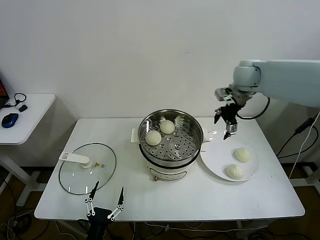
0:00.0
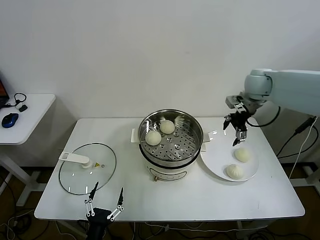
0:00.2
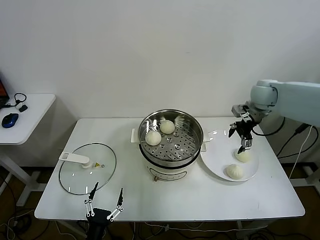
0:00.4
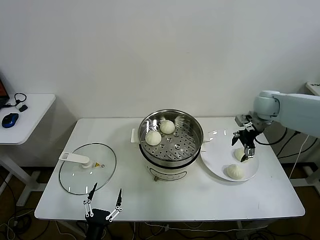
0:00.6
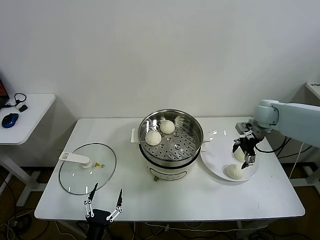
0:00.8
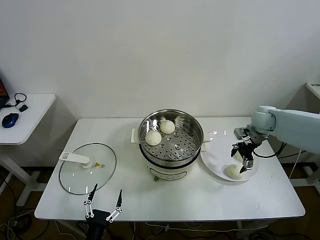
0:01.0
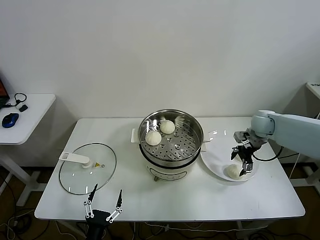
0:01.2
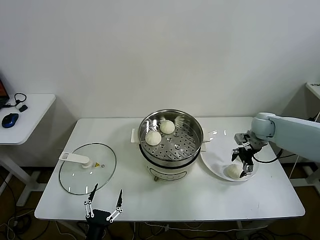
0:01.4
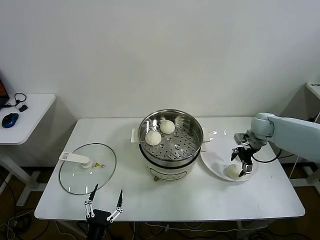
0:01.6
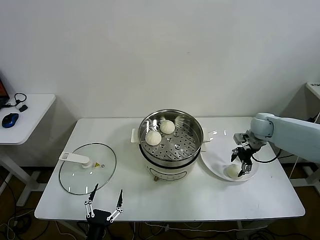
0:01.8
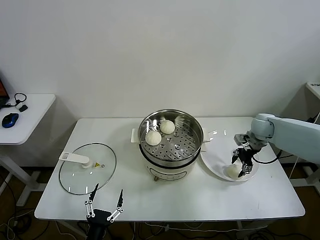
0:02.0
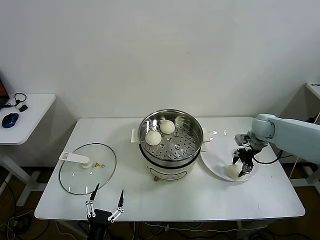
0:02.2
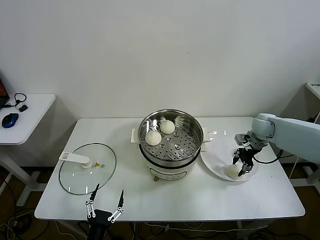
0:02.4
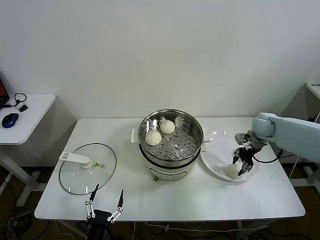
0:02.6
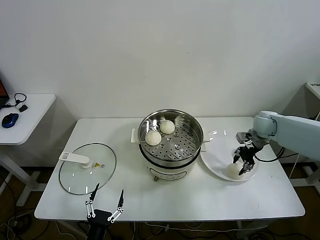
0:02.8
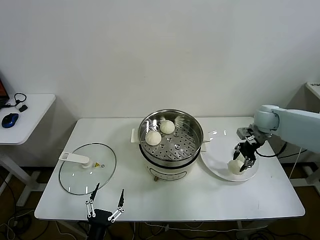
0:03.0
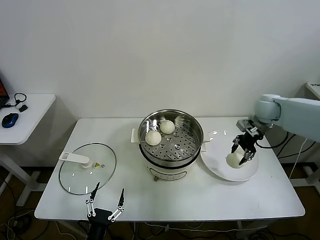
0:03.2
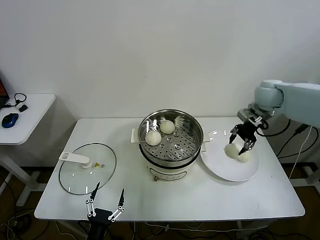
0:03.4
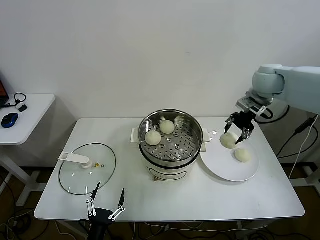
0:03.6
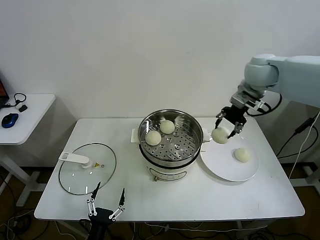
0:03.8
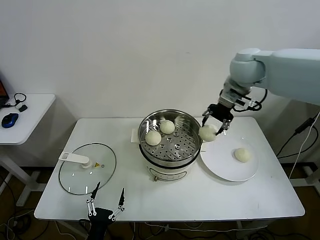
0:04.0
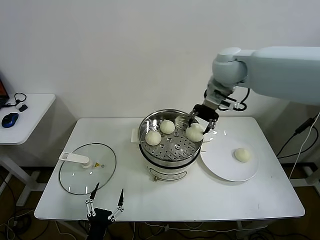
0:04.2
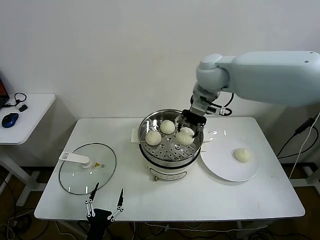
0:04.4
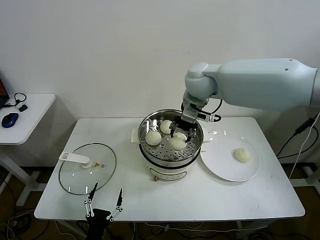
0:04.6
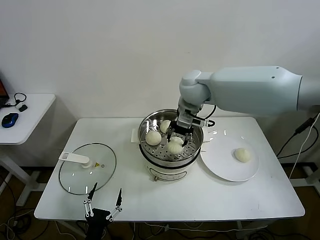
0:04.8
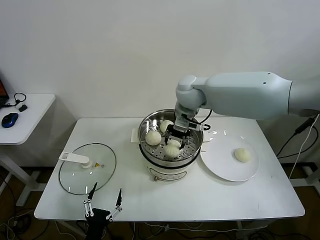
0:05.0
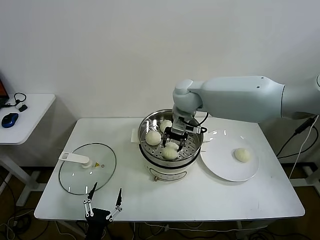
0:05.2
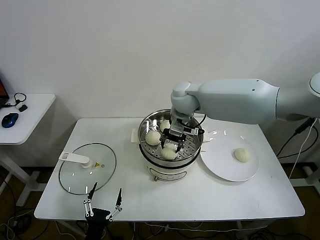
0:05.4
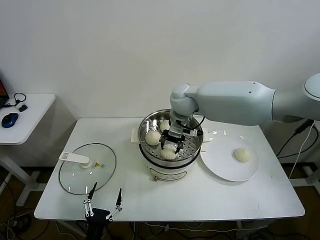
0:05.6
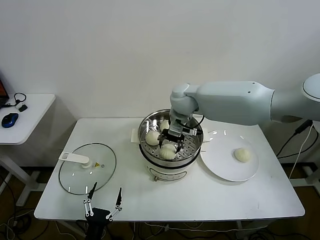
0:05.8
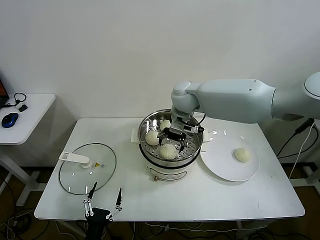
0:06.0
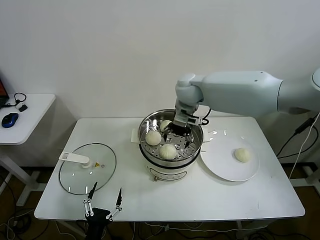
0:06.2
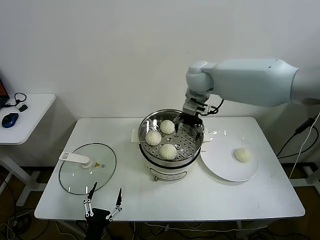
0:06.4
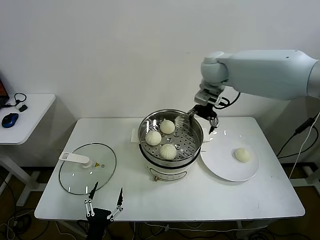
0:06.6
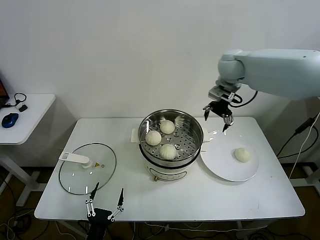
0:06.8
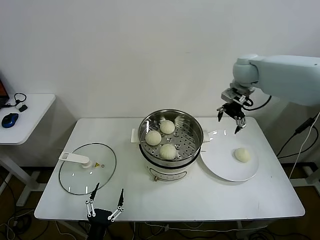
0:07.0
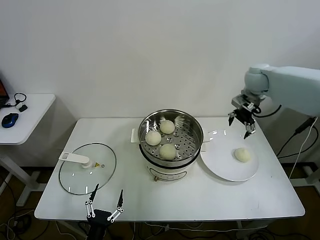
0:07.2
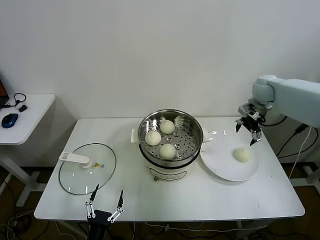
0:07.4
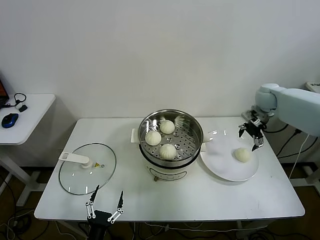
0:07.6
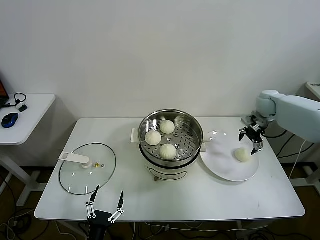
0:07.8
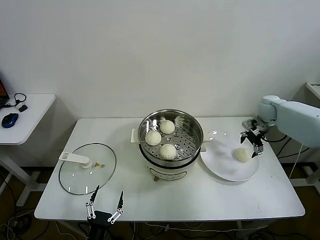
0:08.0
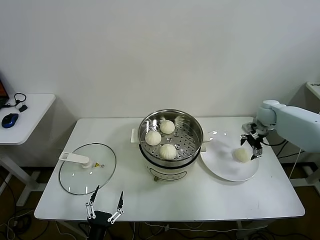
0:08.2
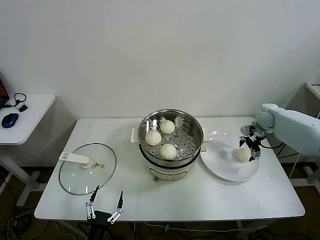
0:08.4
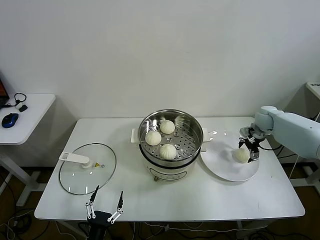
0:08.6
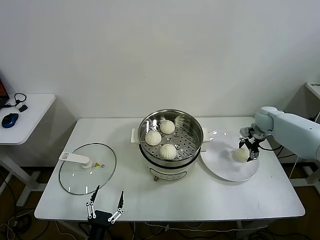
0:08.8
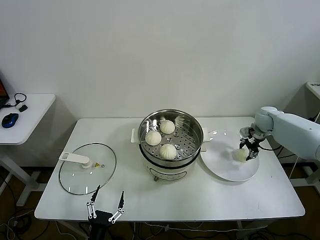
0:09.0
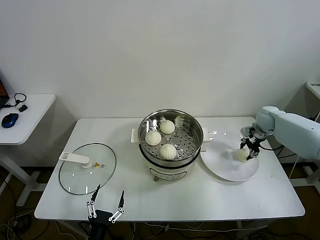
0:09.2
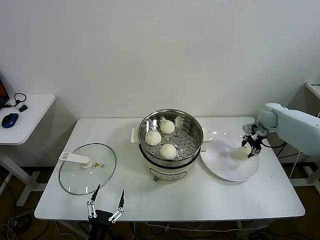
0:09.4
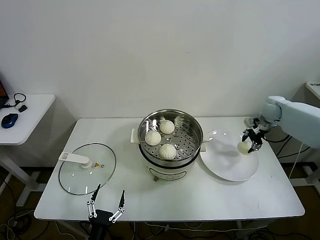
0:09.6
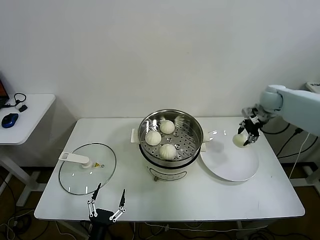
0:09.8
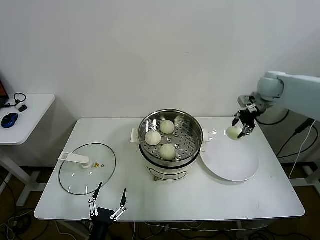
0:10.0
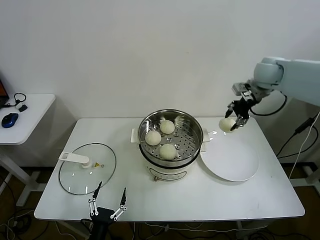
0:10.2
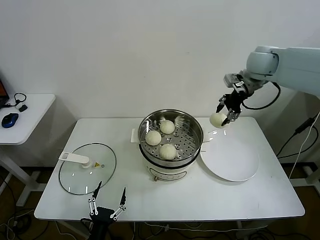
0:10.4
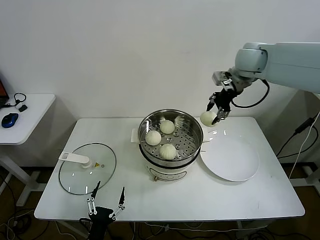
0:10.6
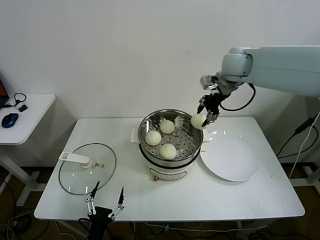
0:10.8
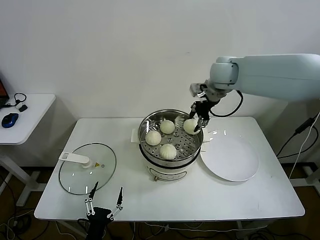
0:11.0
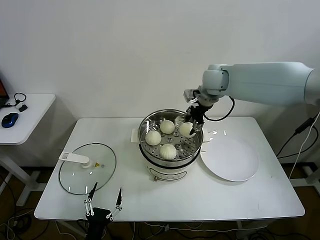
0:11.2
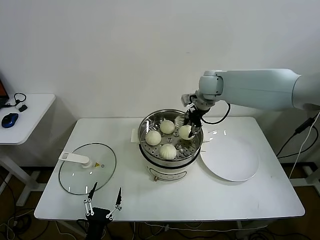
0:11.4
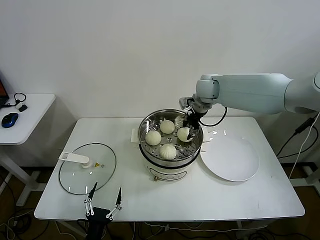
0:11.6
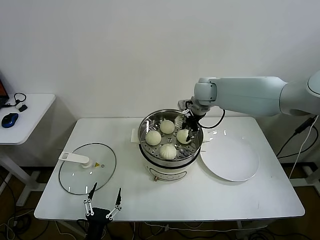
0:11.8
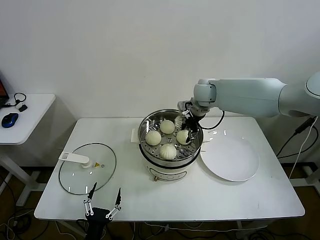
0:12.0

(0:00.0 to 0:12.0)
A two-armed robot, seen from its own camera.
Task of the whole recording: take steamed baozi put them in steamer.
Step, 0:00.0 - 0:02.4: Grasp the baozi in the plate with right gripper.
Step, 0:02.6 - 0:06.0: Place the baozi on the steamer with right gripper.
Step, 0:06.2 - 0:09.0: Grasp the baozi in the plate with right gripper.
0:00.0 - 0:01.6: The right gripper heads downward and to the right, covering about 20 cm.
0:01.6 - 0:03.0: The right gripper closes.
0:03.0 - 0:04.4: The right gripper heads to the left and upward, covering roughly 30 cm.
0:04.4 - 0:06.0: The right gripper goes approximately 10 cm downward and to the left, and opens.
0:06.0 - 0:07.6: The right gripper is displaced to the right by roughly 30 cm.
0:07.6 - 0:09.0: The right gripper is displaced downward by some 10 cm, and closes its fingers.
0:09.0 - 0:10.4: The right gripper travels upward and to the left by some 30 cm.
0:10.4 - 0:12.0: The right gripper goes roughly 20 cm to the left and downward.

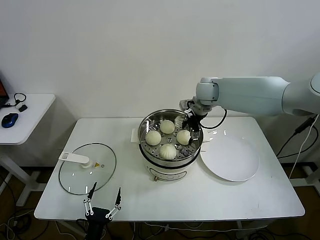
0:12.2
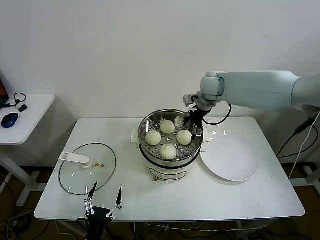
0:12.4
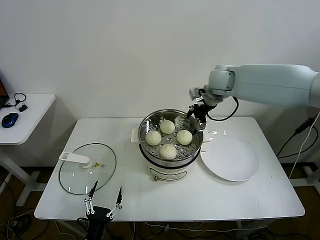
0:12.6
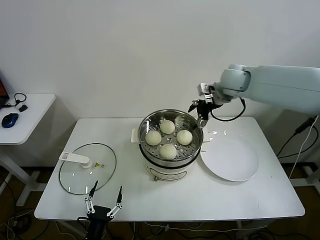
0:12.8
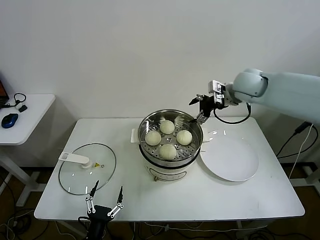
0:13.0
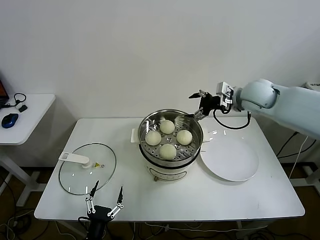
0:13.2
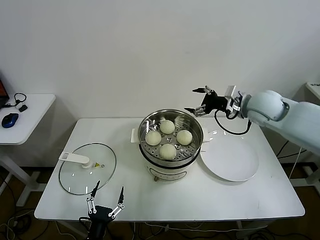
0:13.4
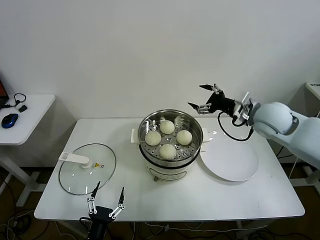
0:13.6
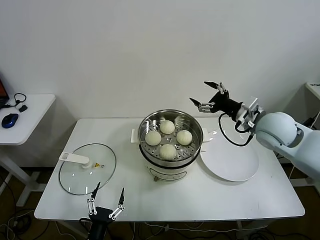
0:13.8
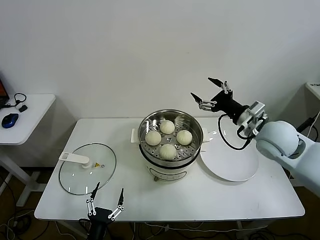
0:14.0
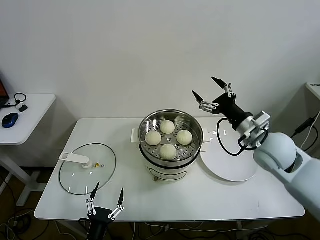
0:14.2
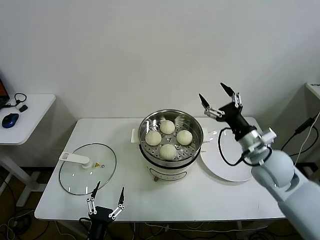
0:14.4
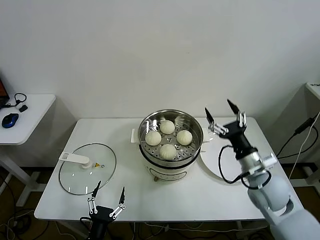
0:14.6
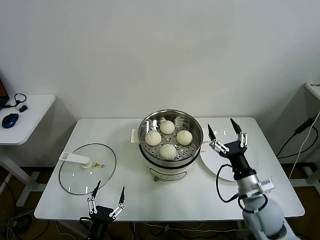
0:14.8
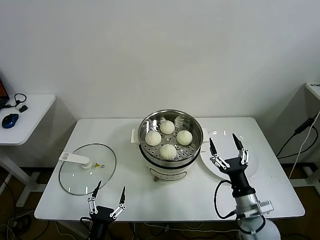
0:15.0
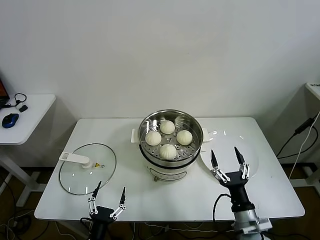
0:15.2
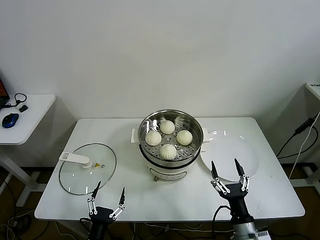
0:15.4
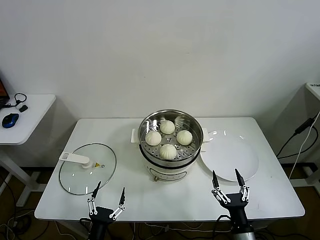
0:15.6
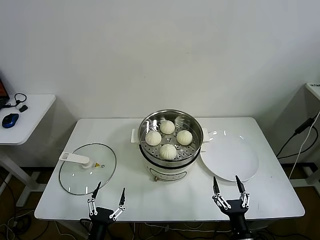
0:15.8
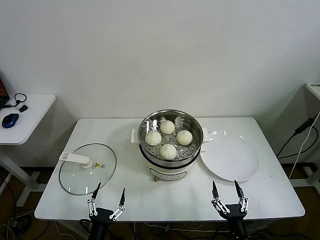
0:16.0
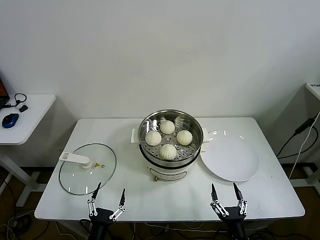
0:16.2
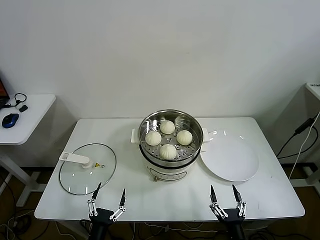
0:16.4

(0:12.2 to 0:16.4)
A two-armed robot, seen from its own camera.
Task of the whole recording: take steamed baozi put them in steamer.
0:12.2 - 0:13.6: The right gripper travels backward and to the right by roughly 20 cm.
0:13.6 - 0:15.0: The right gripper heads backward and downward, covering approximately 30 cm.
0:15.0 - 0:16.4: The right gripper moves backward and downward, some 20 cm.

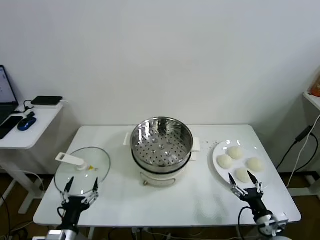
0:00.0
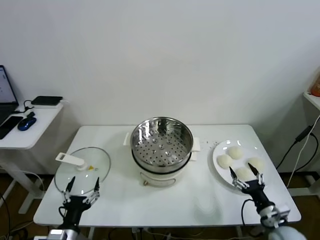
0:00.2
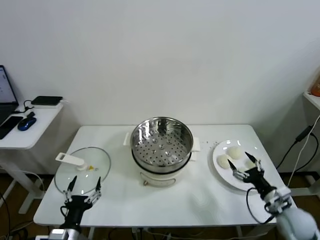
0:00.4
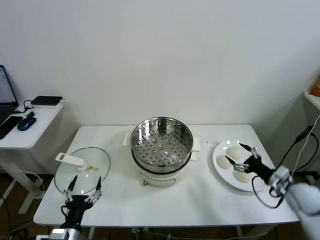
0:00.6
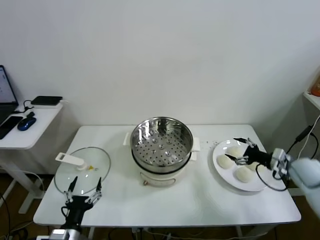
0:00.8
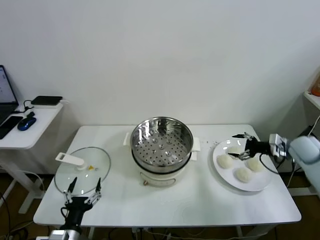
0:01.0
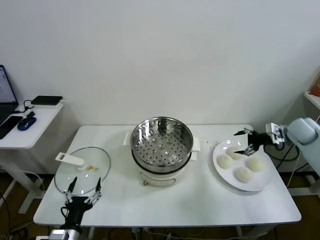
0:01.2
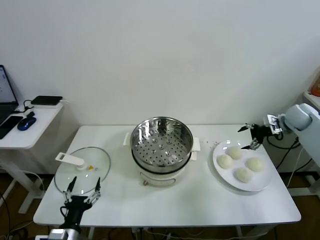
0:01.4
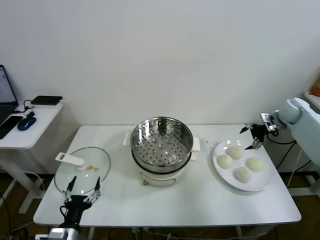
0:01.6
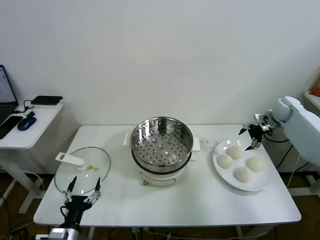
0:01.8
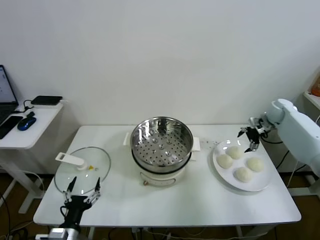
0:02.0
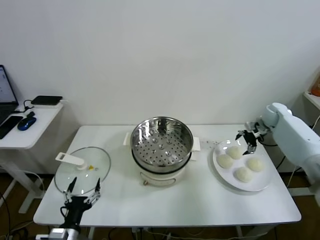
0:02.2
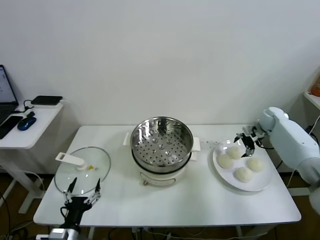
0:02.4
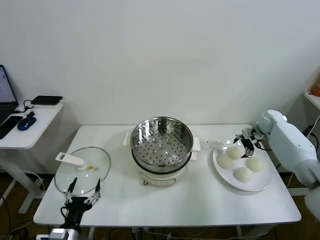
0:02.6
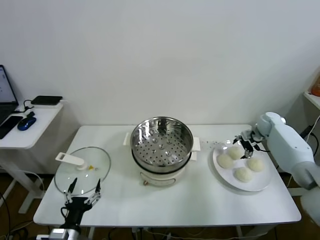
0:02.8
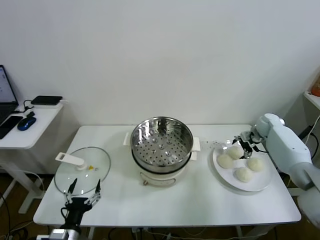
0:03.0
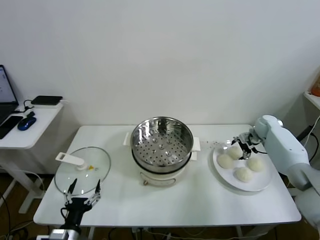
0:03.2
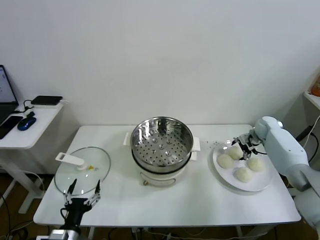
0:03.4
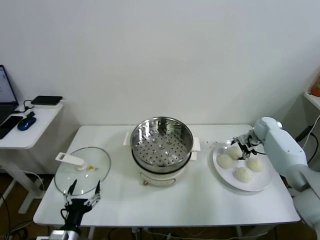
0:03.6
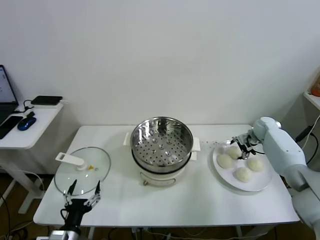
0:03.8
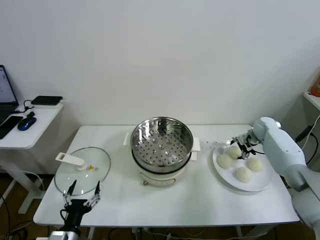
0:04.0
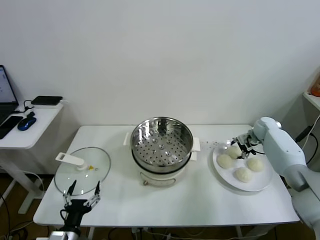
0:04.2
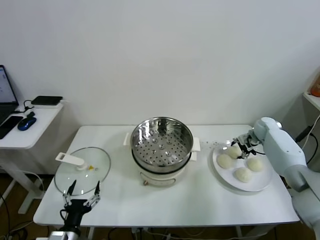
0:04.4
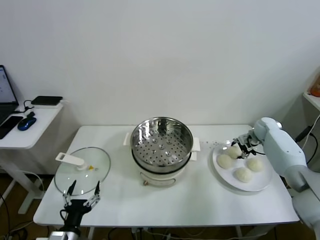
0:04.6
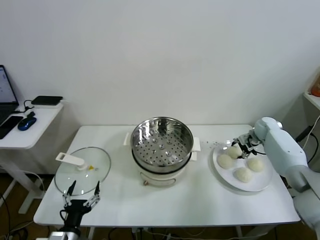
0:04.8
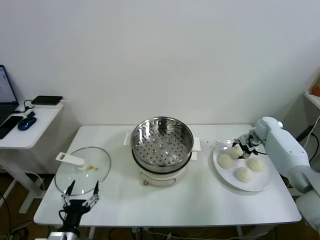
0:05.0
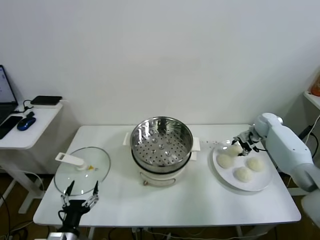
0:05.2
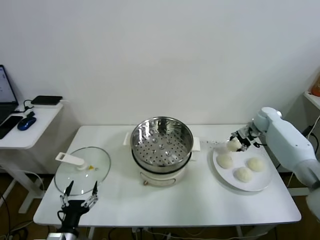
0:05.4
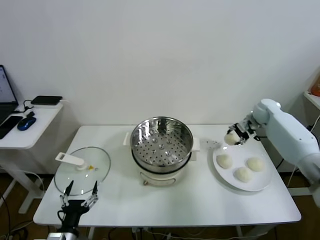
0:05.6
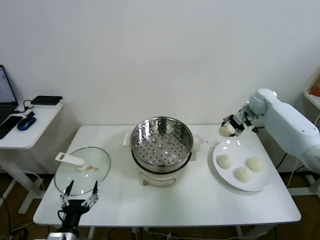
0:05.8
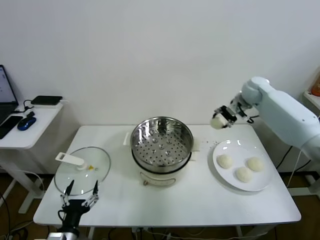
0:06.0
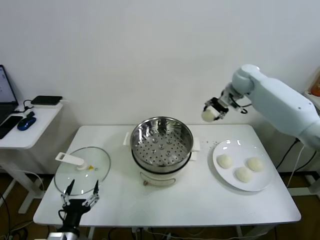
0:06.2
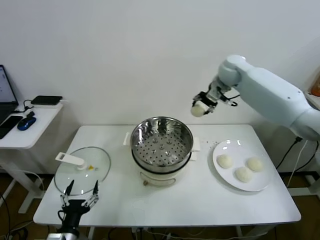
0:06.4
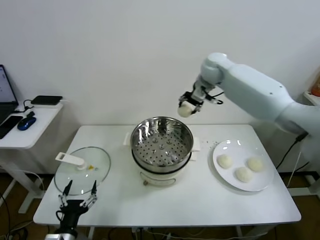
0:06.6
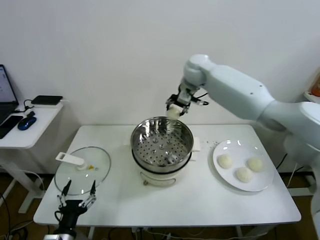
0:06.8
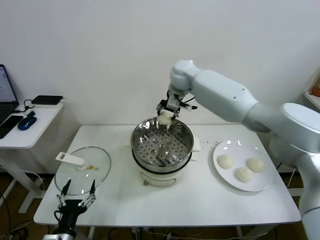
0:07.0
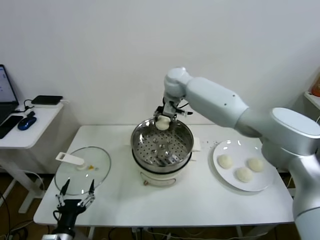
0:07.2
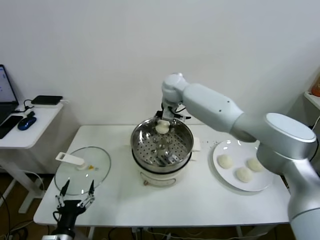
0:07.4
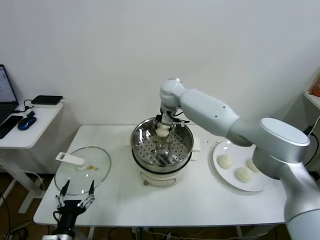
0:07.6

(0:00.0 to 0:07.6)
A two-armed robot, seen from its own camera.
Task of the whole recording: take steamed baozi put them in steamer.
Step, 0:00.0 - 0:04.8: Grasp the baozi in the plate with right gripper.
0:01.6 - 0:03.0: The right gripper travels downward by about 10 cm.
0:03.0 - 0:04.6: The right gripper closes.
0:04.6 - 0:06.0: The right gripper travels upward and to the left by roughly 25 cm.
0:06.0 - 0:07.6: The right gripper shifts approximately 30 cm to the left.
